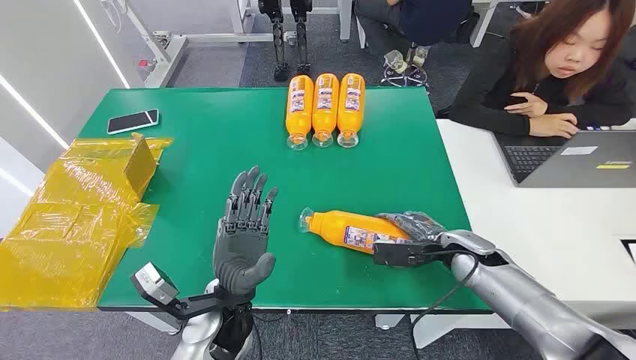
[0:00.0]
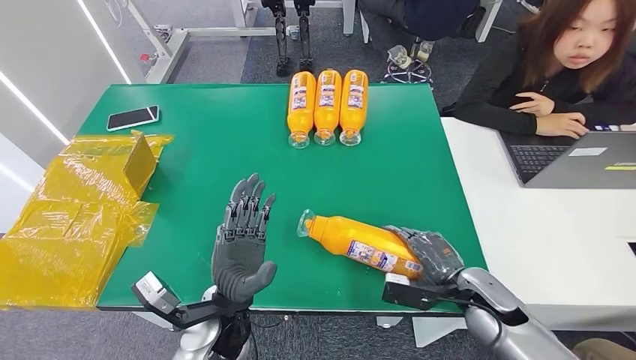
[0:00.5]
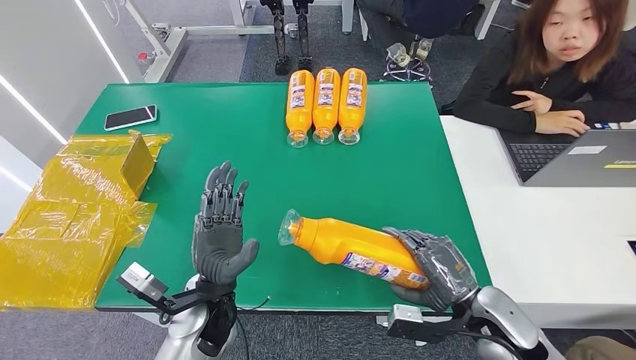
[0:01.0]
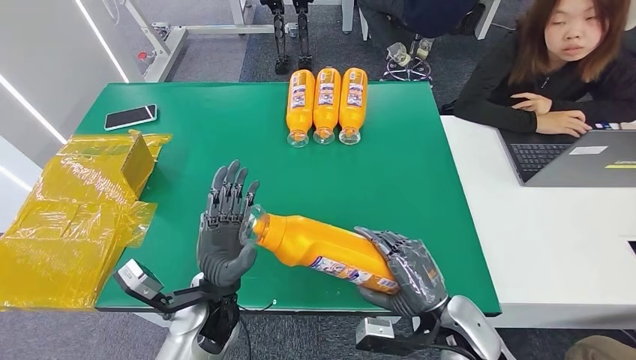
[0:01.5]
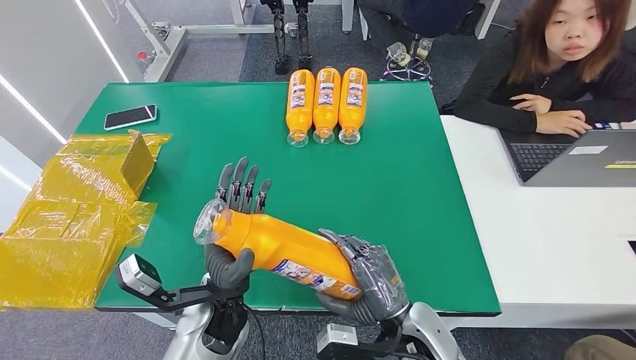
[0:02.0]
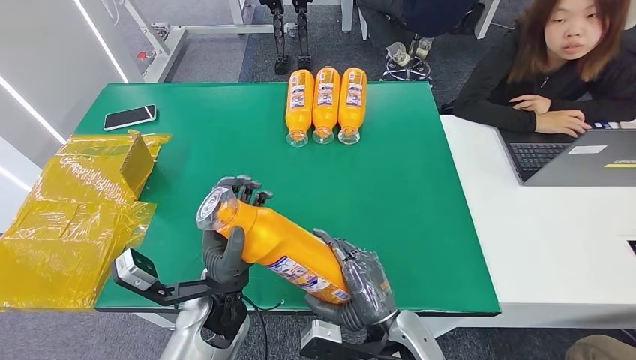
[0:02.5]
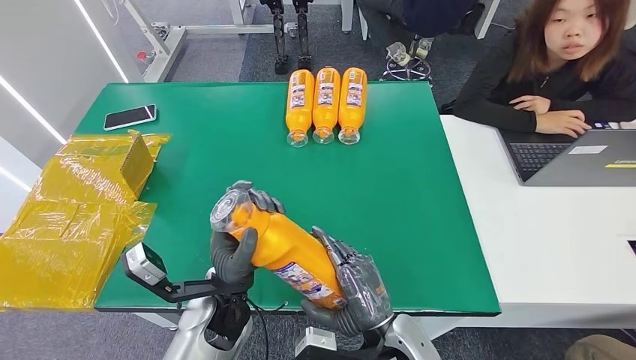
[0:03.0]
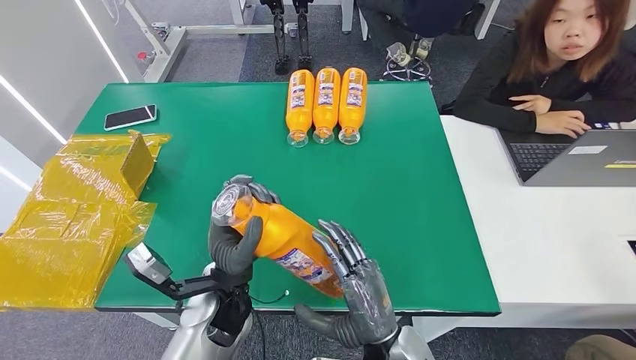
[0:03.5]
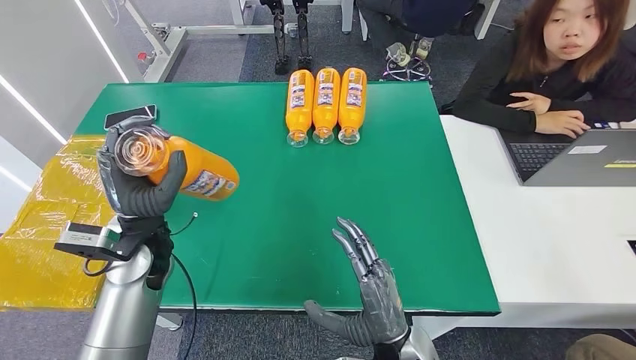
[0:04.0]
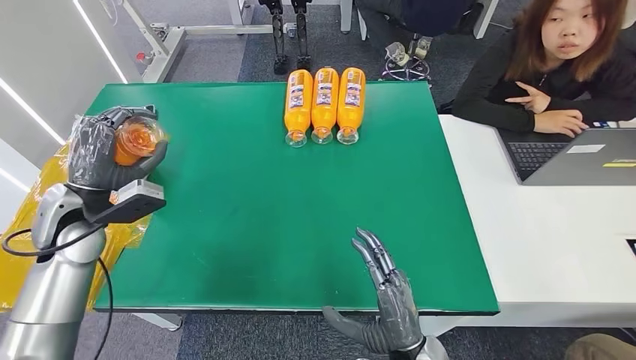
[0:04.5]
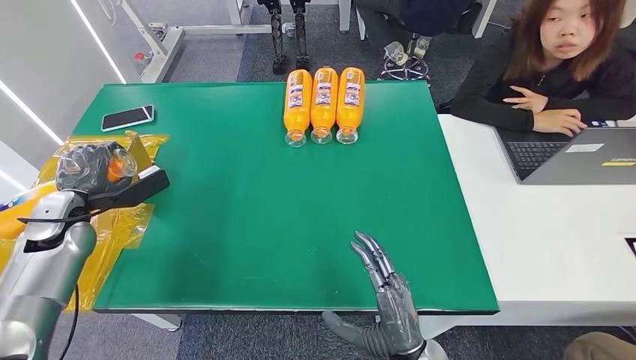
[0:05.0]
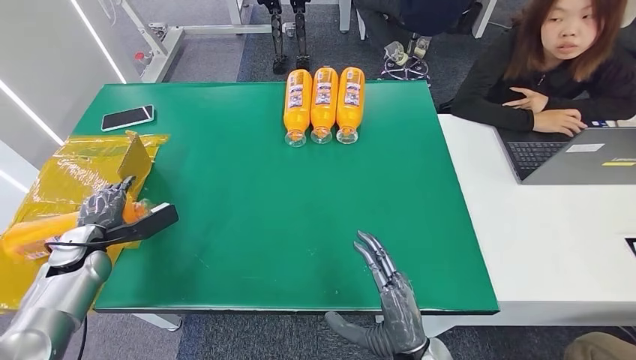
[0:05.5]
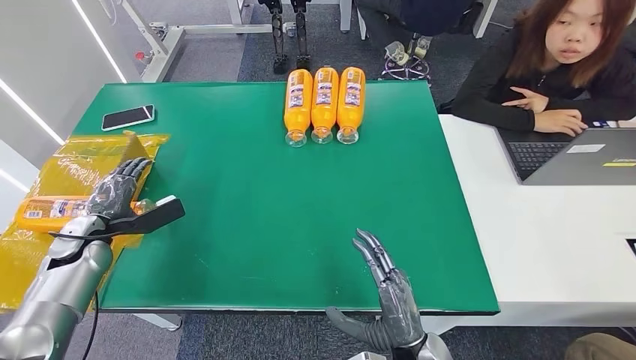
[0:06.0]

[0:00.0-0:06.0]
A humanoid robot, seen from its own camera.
Step, 0:00.0 to 0:01.5: Pick up the bottle from the table.
Step, 0:02.5 to 0:06.0: Turn the bottle to the front side.
0:02.0 to 0:04.0: The left hand goes about 20 cm to the left, forward and upward.
0:04.0 to 0:06.0: The left hand goes roughly 25 cm to the left and downward.
